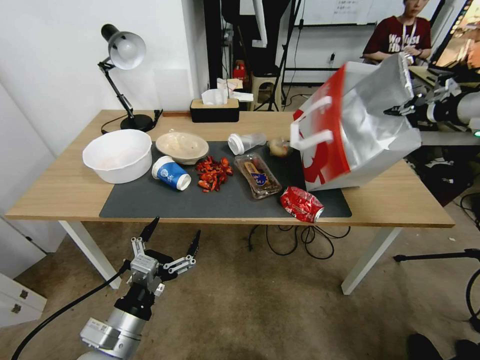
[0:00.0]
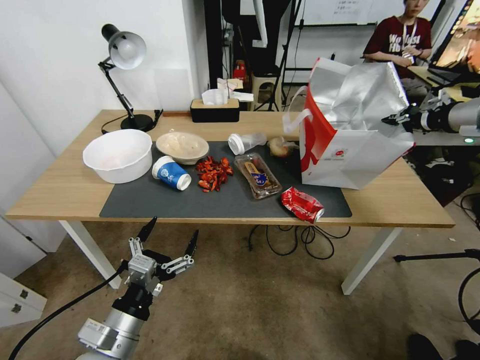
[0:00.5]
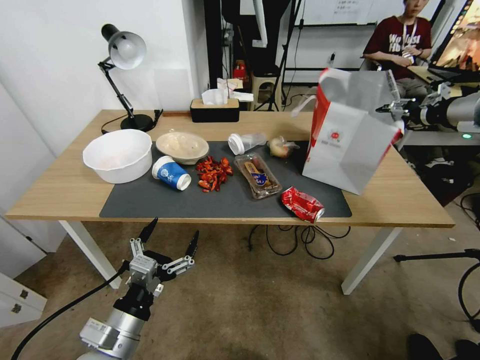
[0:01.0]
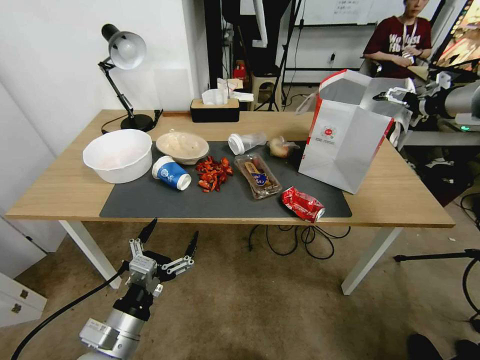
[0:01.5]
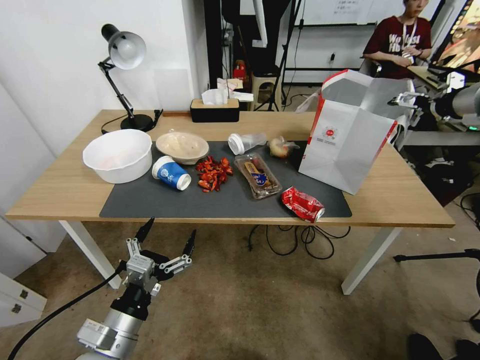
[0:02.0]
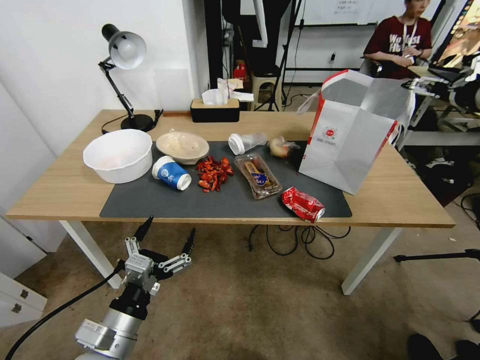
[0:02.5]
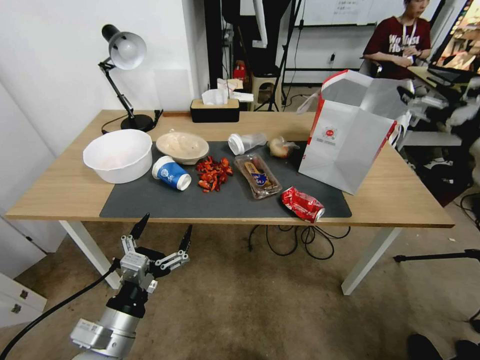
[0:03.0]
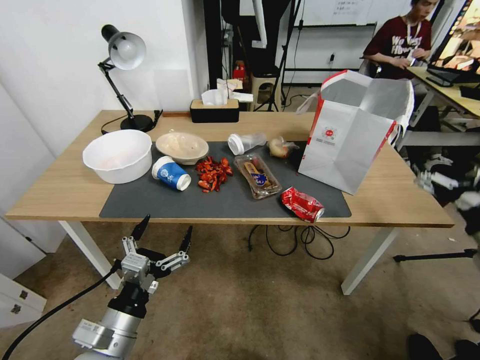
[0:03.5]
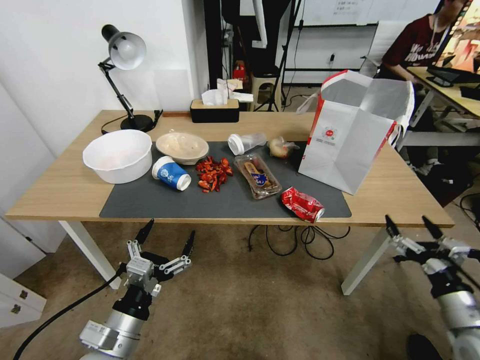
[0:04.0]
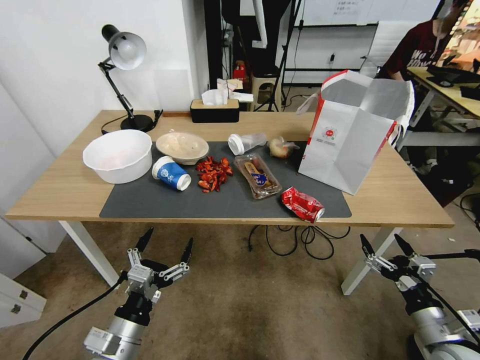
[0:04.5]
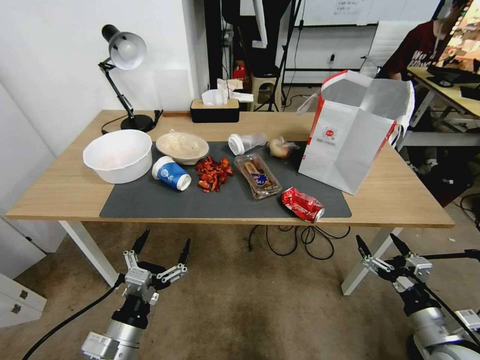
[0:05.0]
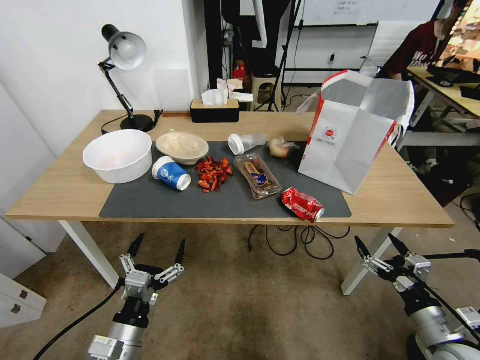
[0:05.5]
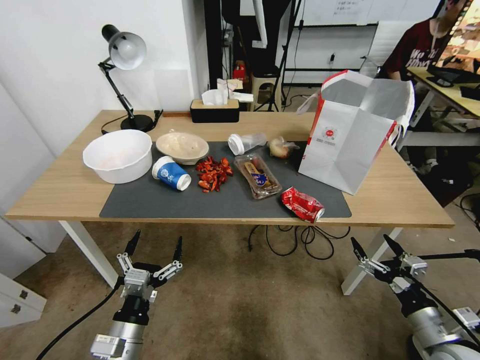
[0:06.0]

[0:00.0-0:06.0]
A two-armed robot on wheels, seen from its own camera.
Task of the whole recording: Pick up the food delivery bag from the floor and place it on the table.
0:00.0 to 0:02.0: The right gripper opens up.
0:02.0 to 0:04.0: The right gripper travels downward and backward by roughly 50 cm.
0:04.0 to 0:06.0: The right gripper moves approximately 5 cm.

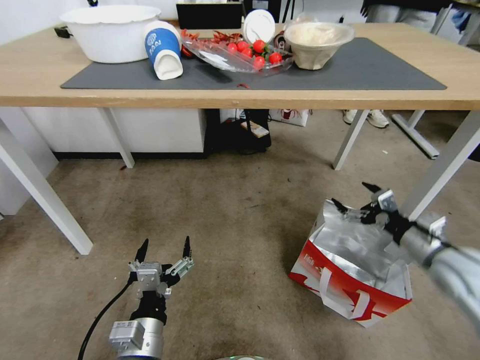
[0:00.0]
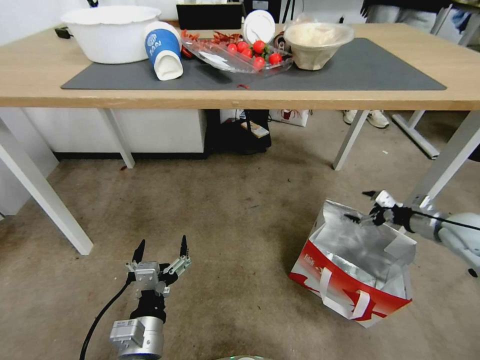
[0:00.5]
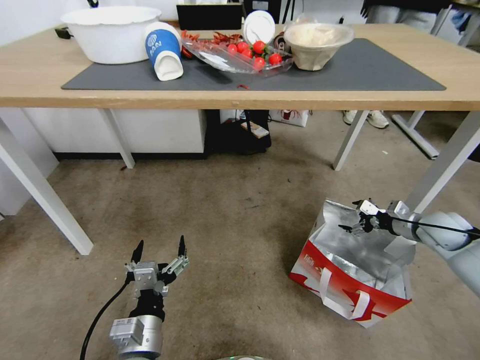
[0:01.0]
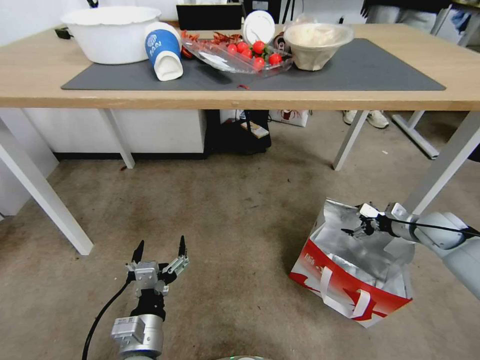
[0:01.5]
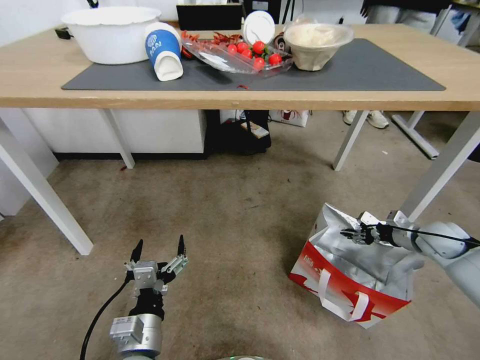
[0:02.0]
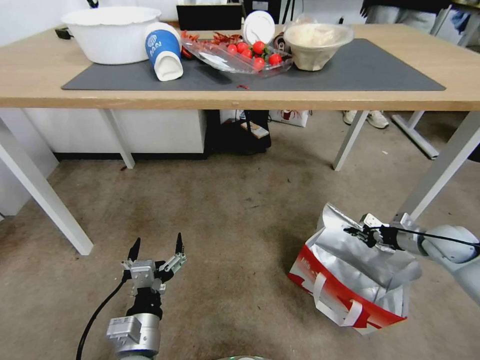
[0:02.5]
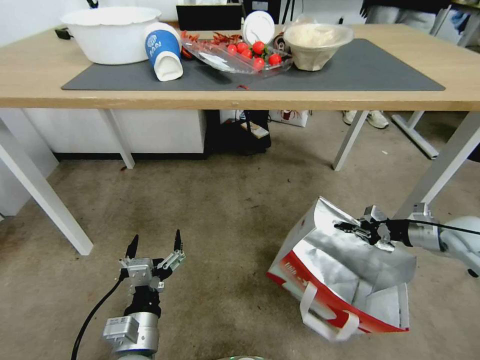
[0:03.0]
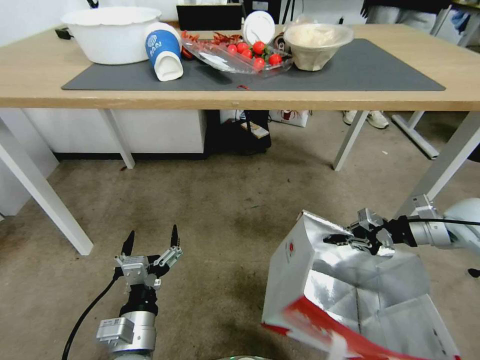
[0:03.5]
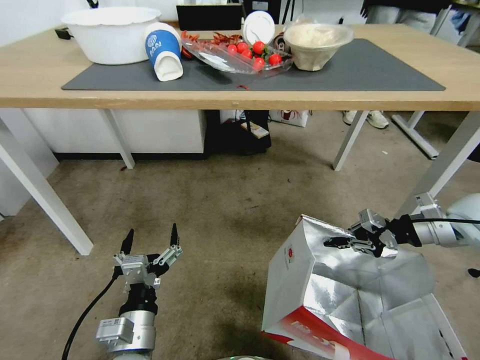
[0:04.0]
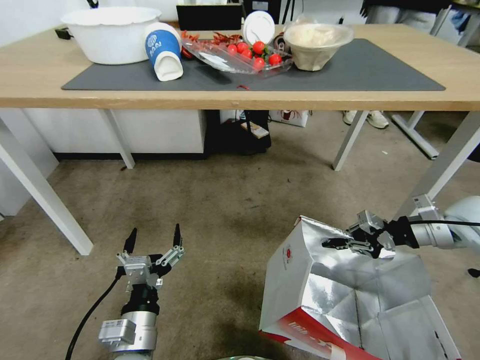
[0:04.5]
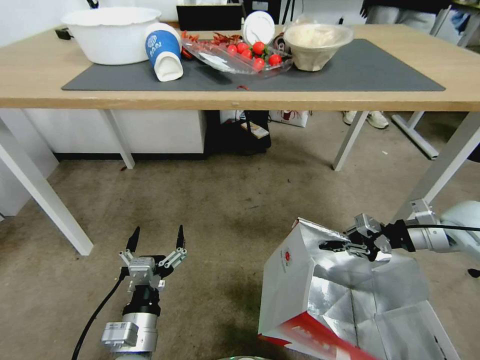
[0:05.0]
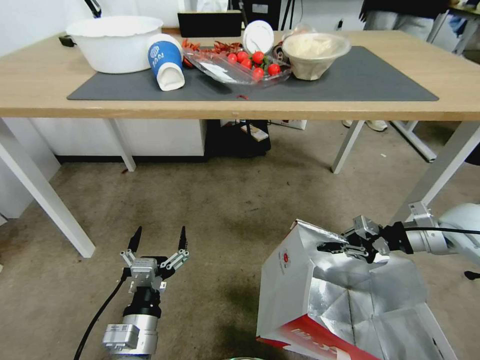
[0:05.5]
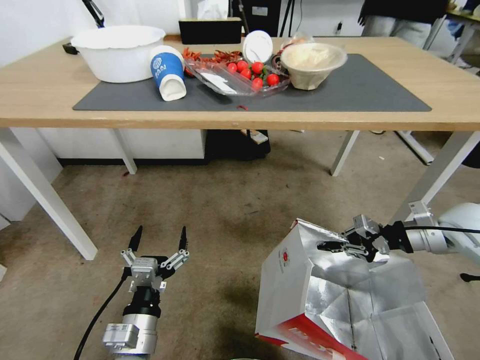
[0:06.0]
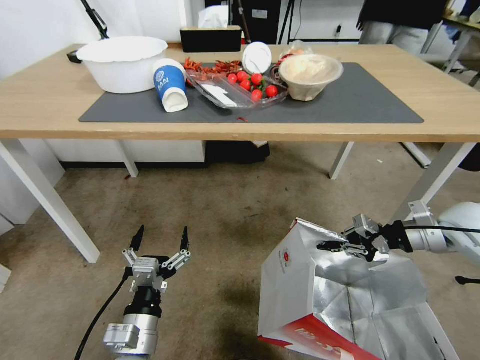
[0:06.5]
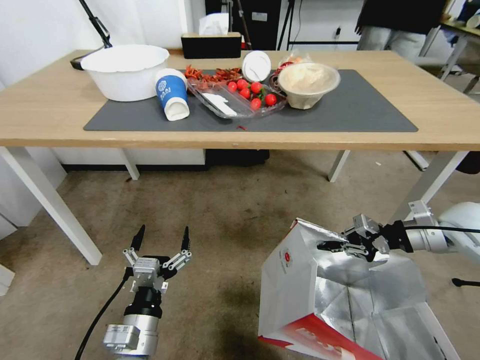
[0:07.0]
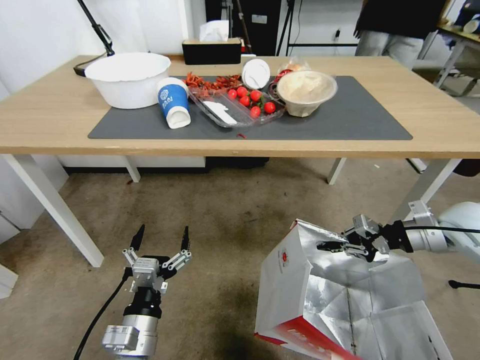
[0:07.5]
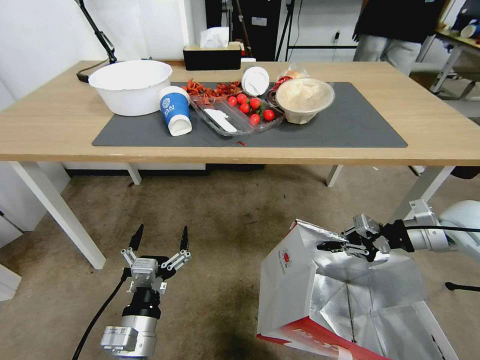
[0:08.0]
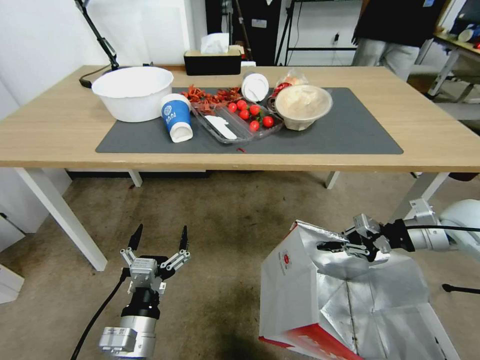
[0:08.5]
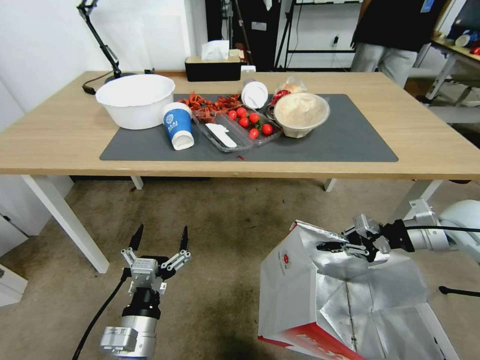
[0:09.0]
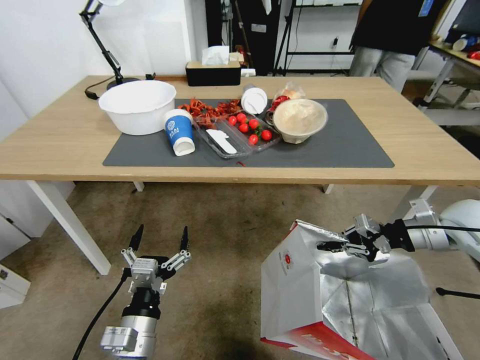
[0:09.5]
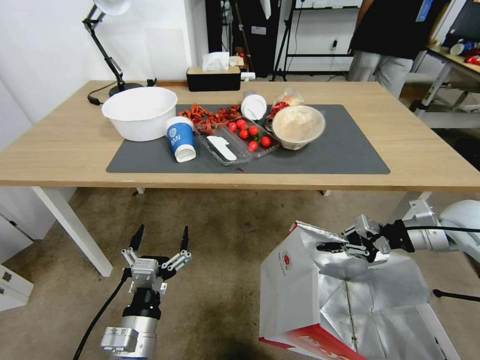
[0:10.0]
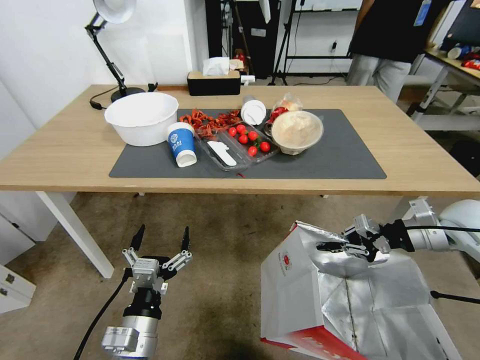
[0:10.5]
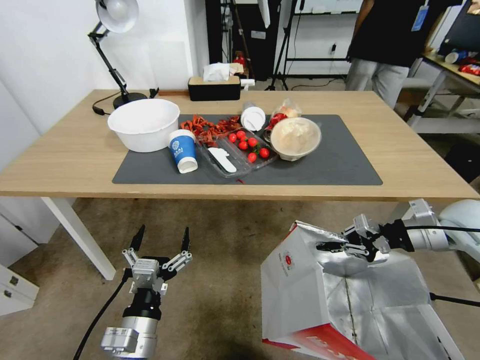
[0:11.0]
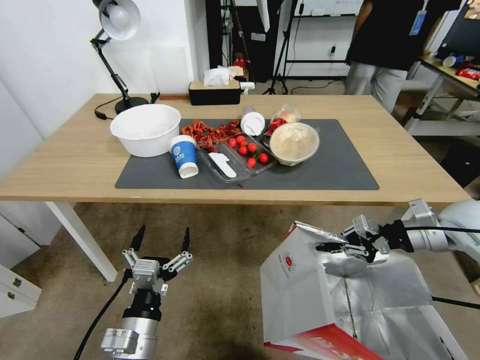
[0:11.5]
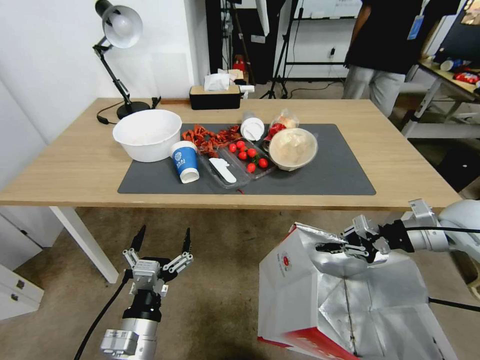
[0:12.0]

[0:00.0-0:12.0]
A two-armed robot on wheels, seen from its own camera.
Task of the whole recording: Pick up the food delivery bag from the floor and place it on the table.
0:00.0 to 0:02.0: The right gripper shifts approximately 20 cm forward, to the right and downward, and closes.
0:02.0 to 0:04.0: The right gripper is displaced upward by roughly 15 cm, and closes its fingers.

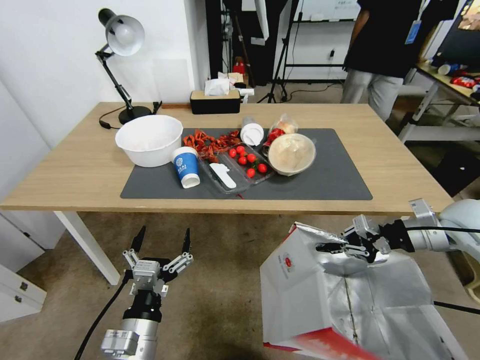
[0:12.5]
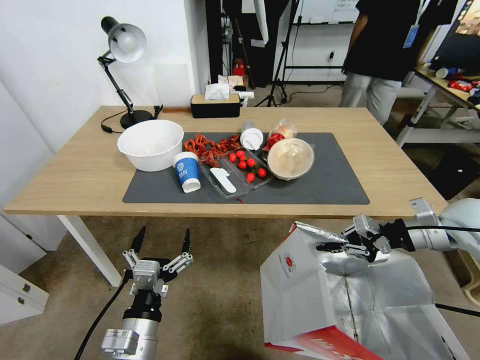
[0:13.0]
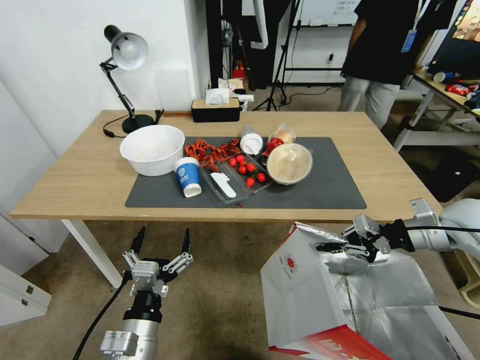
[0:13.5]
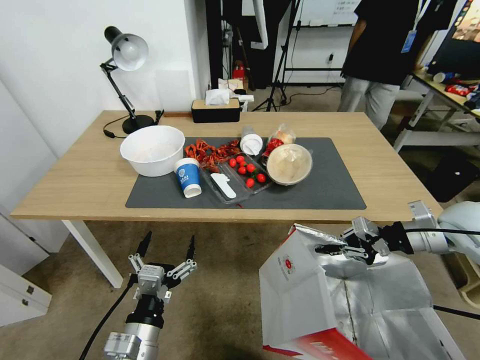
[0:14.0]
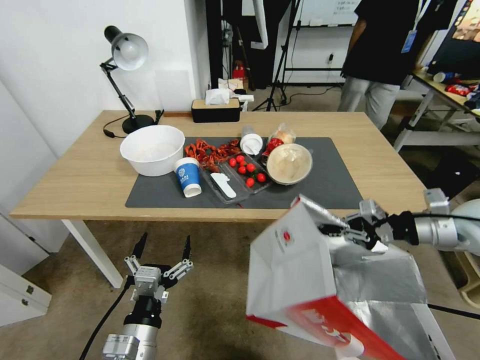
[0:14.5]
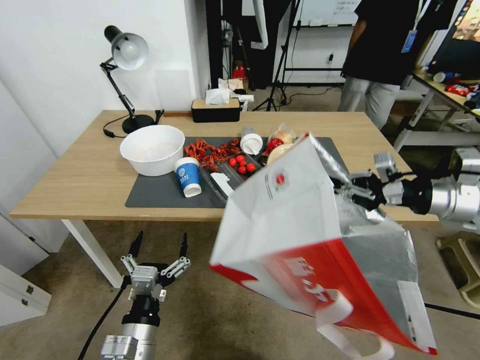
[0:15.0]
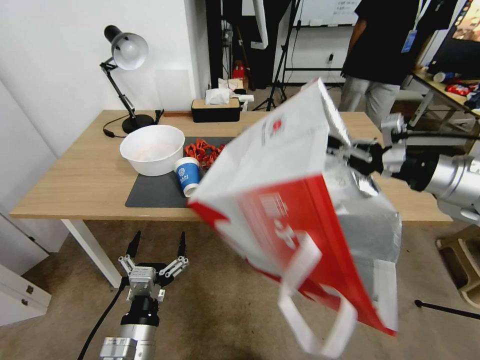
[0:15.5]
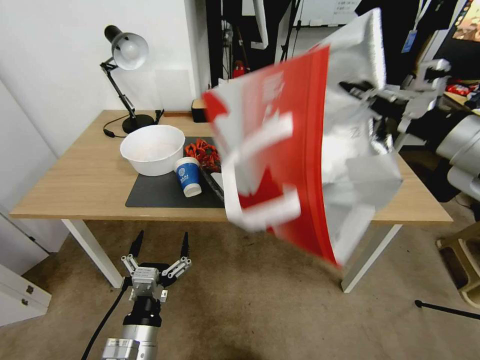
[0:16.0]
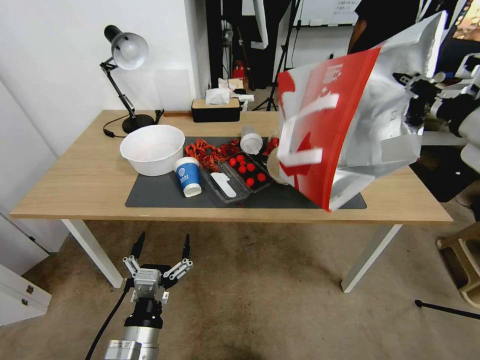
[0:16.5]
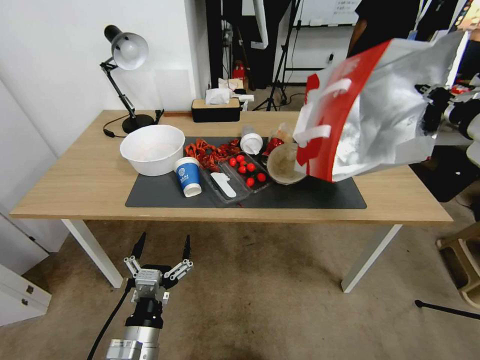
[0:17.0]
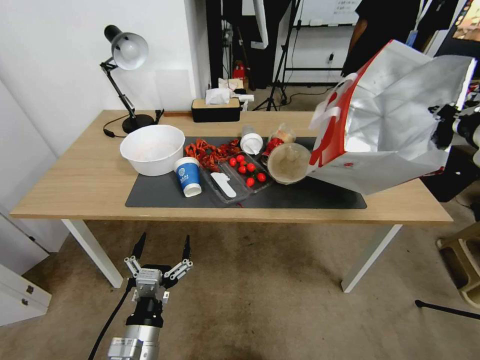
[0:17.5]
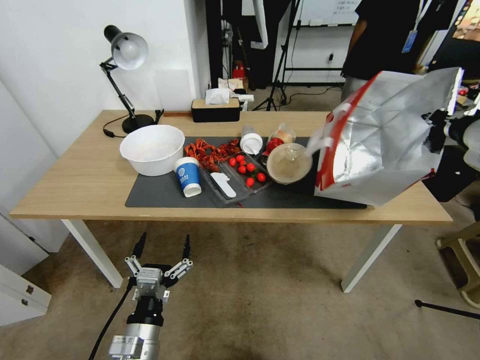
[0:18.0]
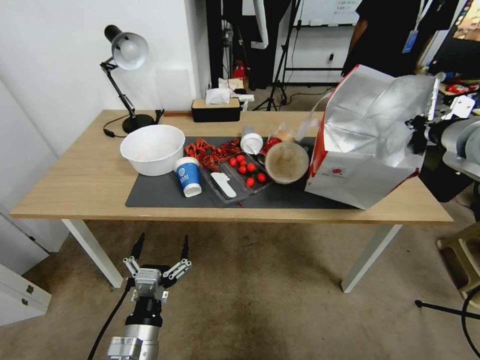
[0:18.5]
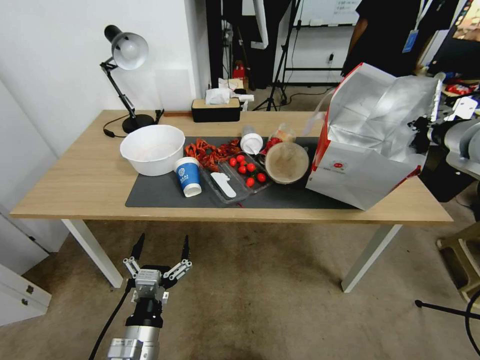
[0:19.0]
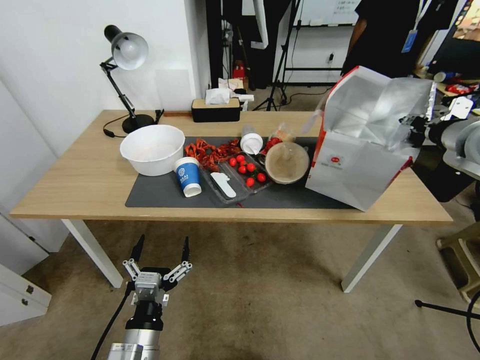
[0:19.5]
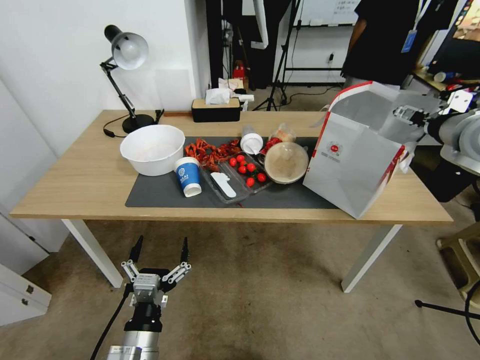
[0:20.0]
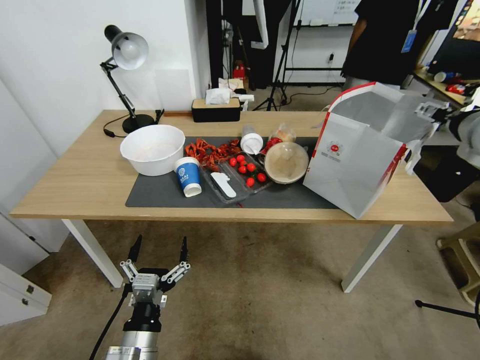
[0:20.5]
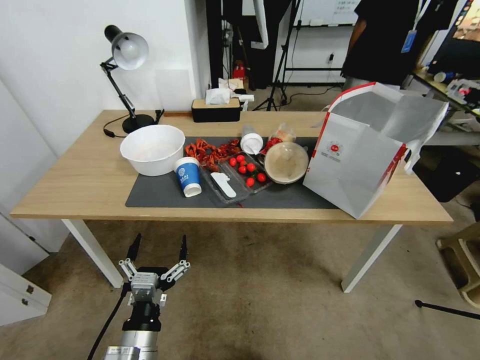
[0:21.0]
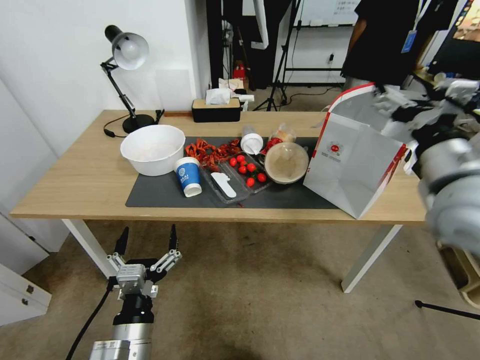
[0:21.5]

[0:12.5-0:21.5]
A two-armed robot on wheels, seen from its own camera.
Task of the whole recording: Pick up the food delivery bag from the floor and place it on the table.
0:14.5 to 0:17.0: The right gripper moves upward, about 15 cm.
0:17.0 to 0:19.5: The right gripper goes about 5 cm forward, and opens up.
0:19.5 to 0:21.5: The right gripper shifts roughly 15 cm backward and to the left, and opens up.
